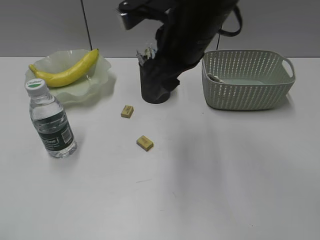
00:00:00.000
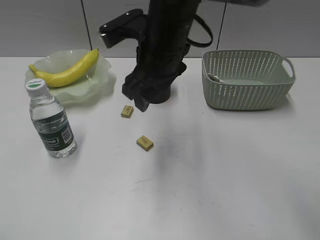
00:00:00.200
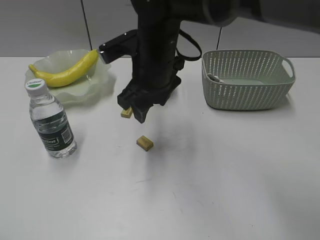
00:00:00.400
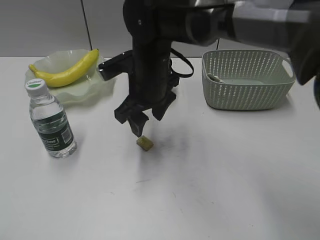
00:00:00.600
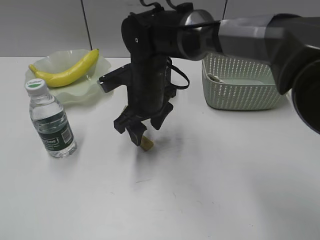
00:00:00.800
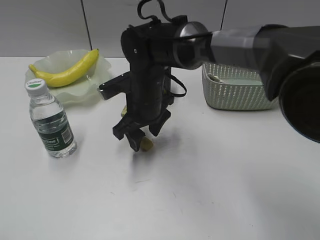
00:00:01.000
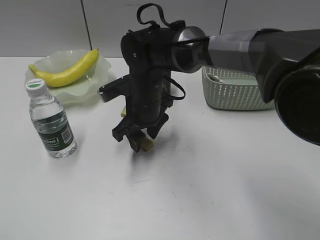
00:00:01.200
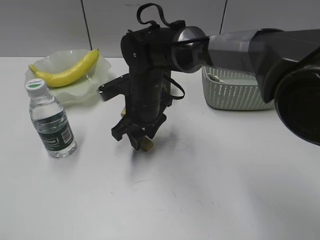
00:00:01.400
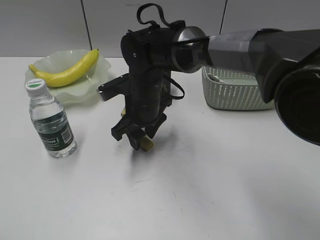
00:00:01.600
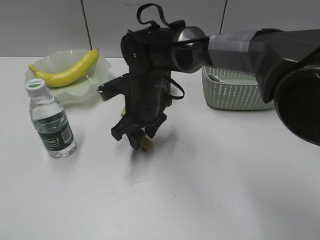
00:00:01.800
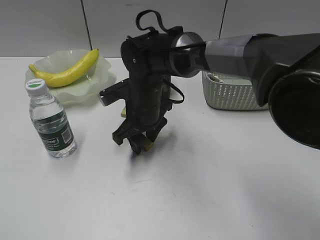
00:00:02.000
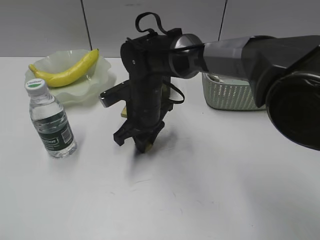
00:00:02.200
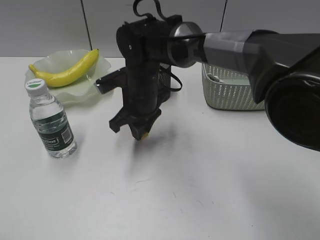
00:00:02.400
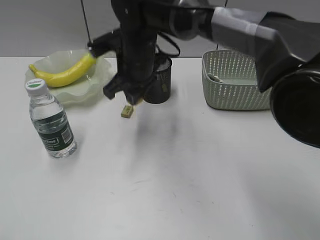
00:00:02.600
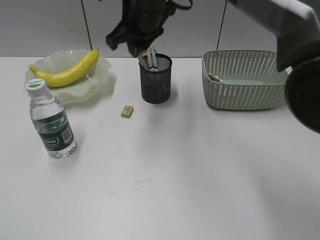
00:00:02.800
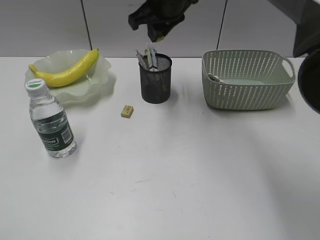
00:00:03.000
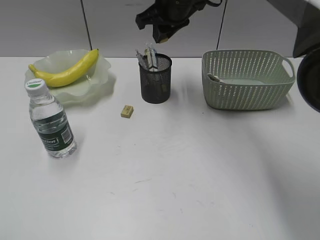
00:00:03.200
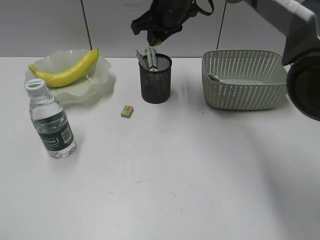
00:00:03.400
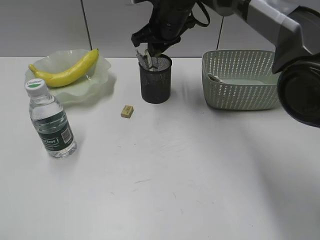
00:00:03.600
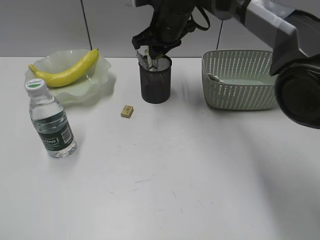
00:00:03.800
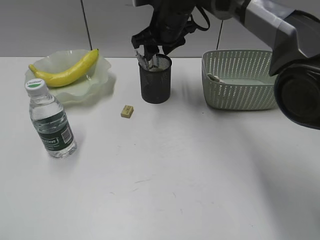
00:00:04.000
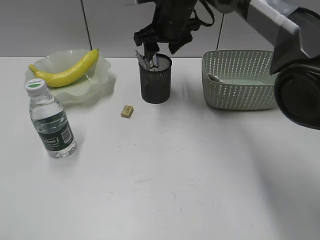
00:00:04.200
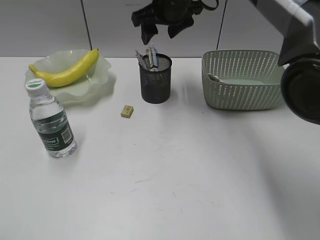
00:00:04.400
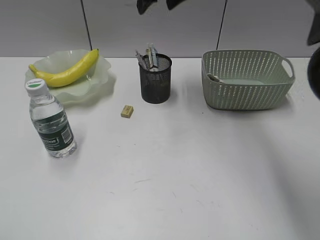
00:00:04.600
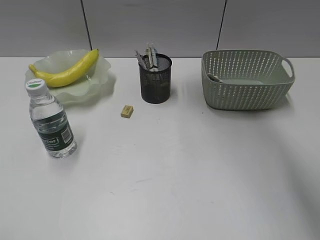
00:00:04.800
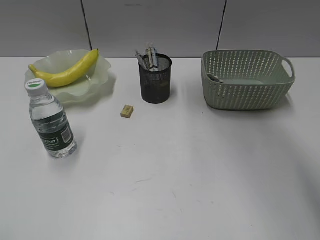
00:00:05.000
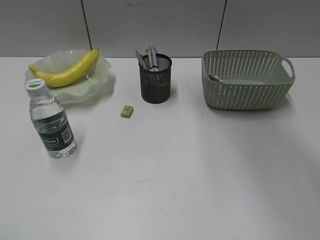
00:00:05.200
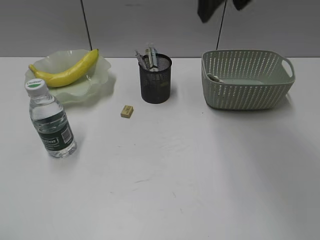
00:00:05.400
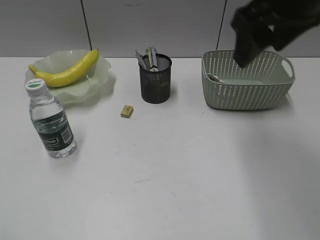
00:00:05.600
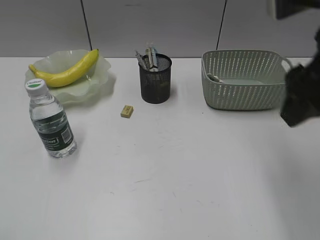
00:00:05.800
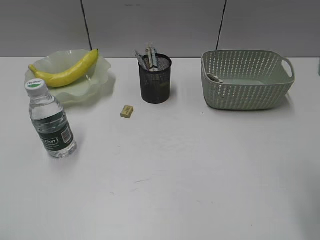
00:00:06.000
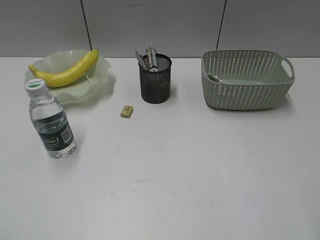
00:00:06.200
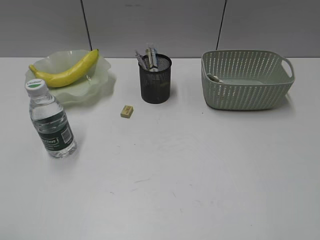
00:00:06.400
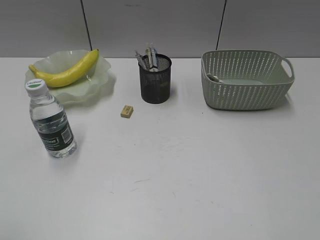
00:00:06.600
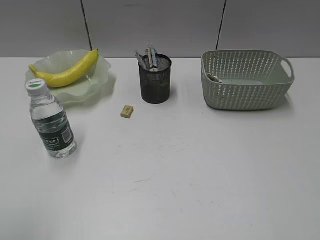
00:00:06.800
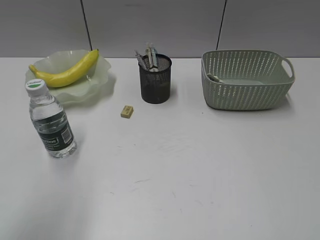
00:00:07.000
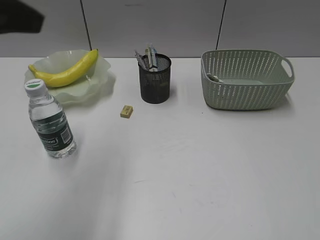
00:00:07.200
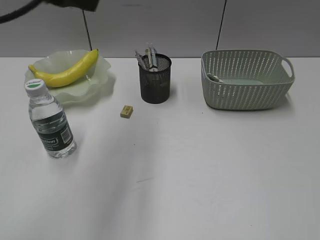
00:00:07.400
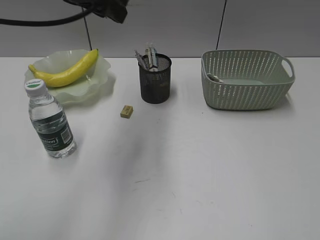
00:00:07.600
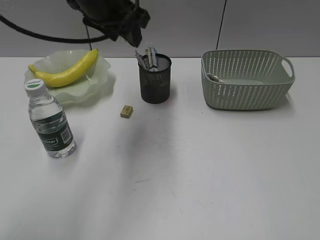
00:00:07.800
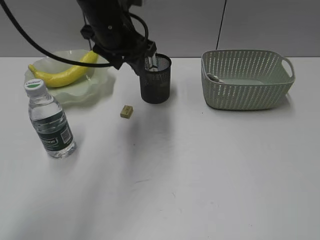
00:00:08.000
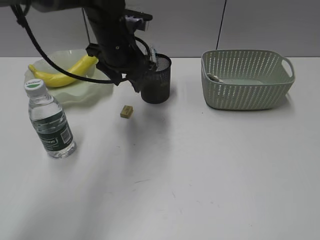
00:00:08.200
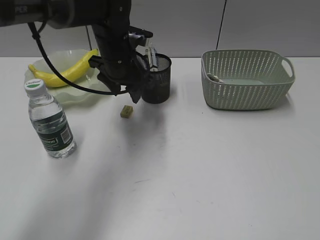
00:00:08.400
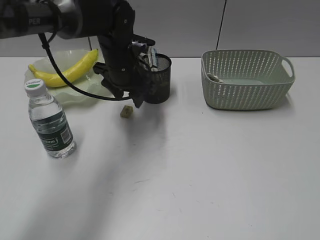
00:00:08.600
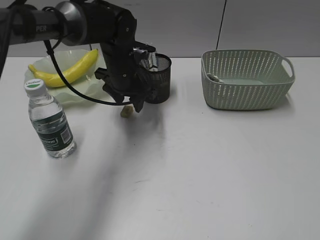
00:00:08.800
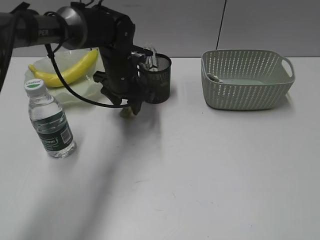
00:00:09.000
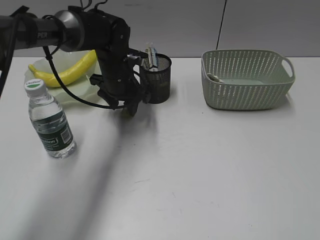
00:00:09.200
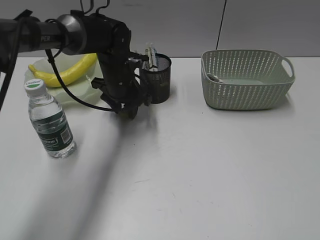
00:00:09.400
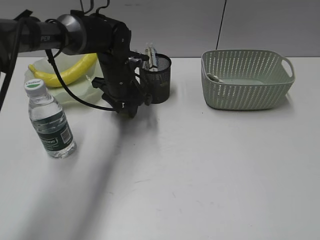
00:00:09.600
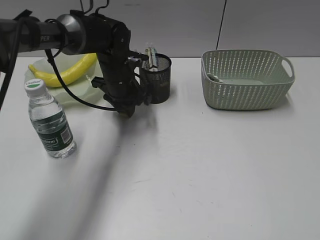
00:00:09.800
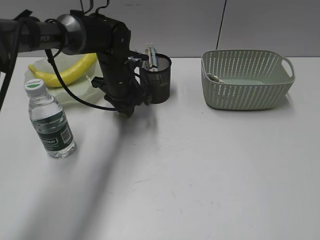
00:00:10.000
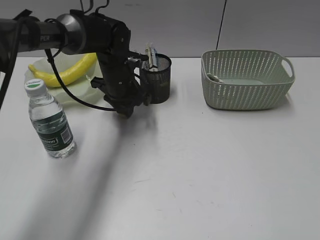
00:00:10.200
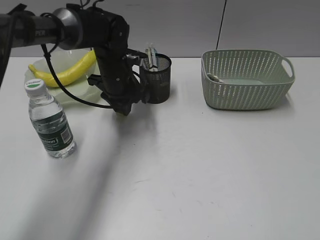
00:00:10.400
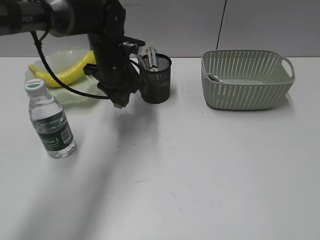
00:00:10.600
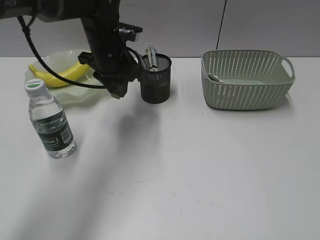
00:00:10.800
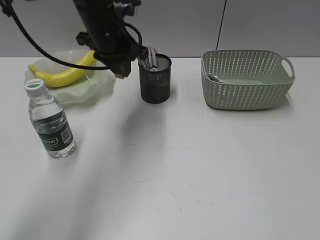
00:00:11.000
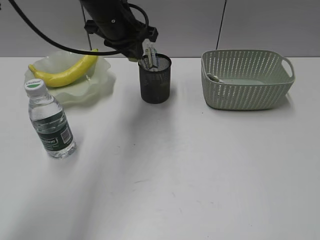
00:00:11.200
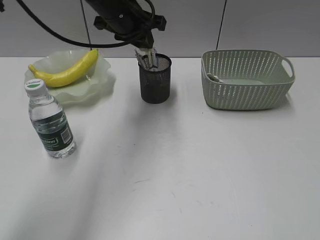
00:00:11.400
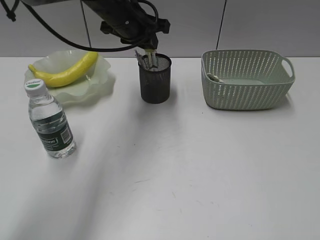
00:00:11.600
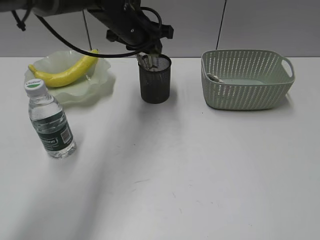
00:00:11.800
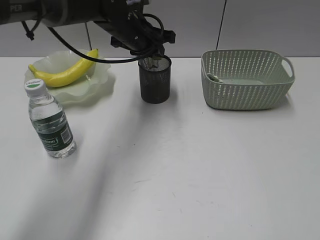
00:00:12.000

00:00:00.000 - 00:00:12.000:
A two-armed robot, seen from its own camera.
Step, 00:00:00.000 - 00:00:02.200: Grasp the eraser with right gripper.
Step, 00:00:02.400 - 00:00:04.000: Place the eraser in pen holder with right gripper.
Step, 00:00:04.200 - 00:00:09.800: Grasp the eraser with left gripper.
00:00:00.000 - 00:00:01.600: The right gripper goes about 20 cm downward and to the left.
00:00:01.600 - 00:00:03.000: The right gripper moves upward and forward, about 20 cm, and closes up.
00:00:03.000 - 00:00:04.400: The right gripper opens its fingers.
00:00:04.400 - 00:00:06.000: The right gripper moves backward and to the right, roughly 35 cm.
00:00:06.000 - 00:00:07.600: The left gripper is displaced forward and to the right by some 40 cm. The right gripper goes about 20 cm backward and to the right.
00:00:07.600 - 00:00:09.000: The left gripper is displaced downward and forward by approximately 25 cm.
00:00:09.000 - 00:00:10.400: The left gripper closes its fingers.
00:00:10.400 - 00:00:12.000: The left gripper goes some 10 cm upward.

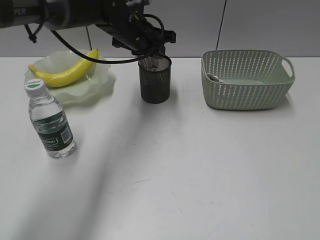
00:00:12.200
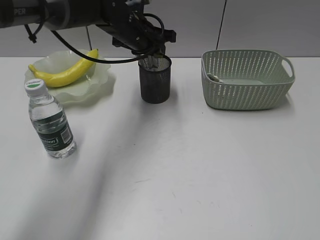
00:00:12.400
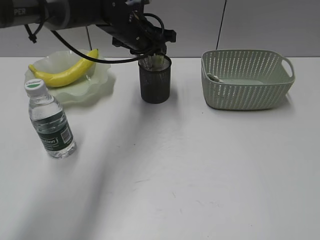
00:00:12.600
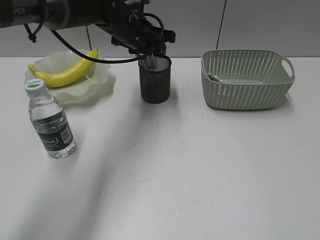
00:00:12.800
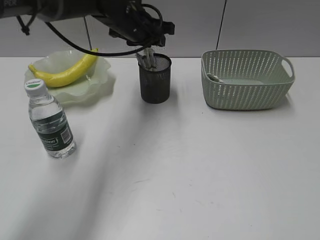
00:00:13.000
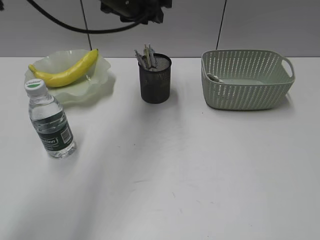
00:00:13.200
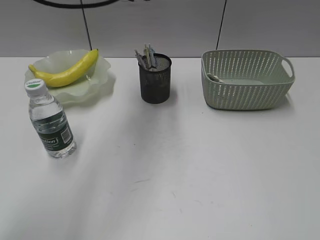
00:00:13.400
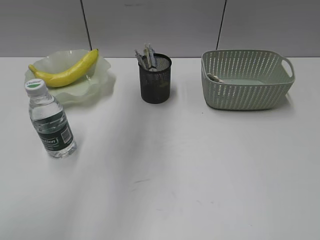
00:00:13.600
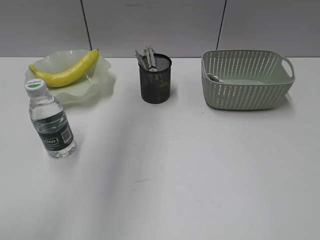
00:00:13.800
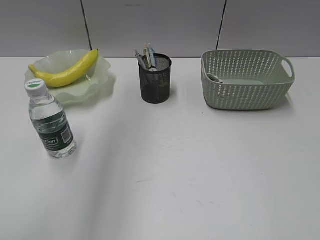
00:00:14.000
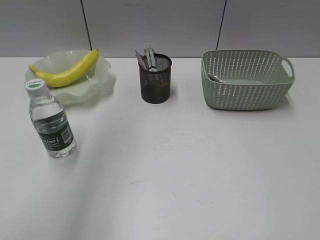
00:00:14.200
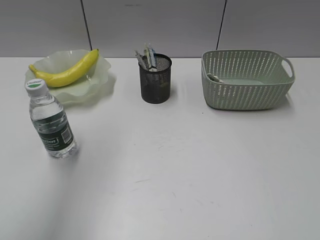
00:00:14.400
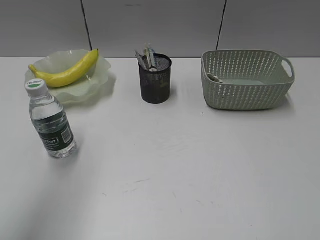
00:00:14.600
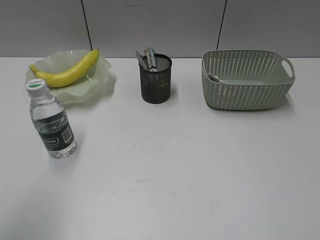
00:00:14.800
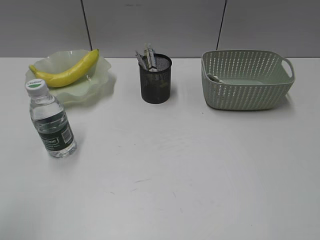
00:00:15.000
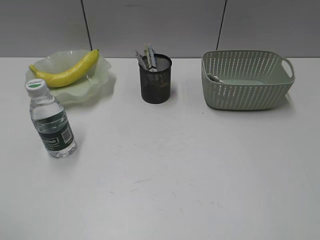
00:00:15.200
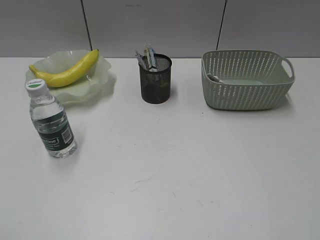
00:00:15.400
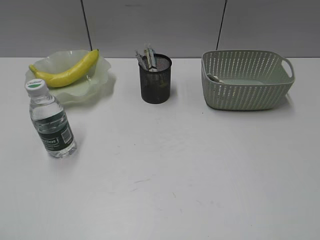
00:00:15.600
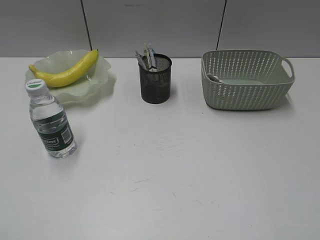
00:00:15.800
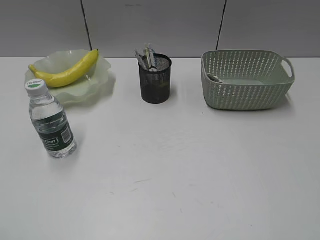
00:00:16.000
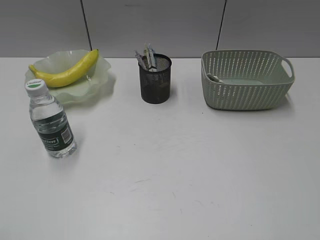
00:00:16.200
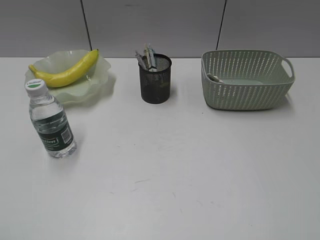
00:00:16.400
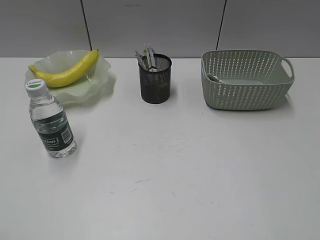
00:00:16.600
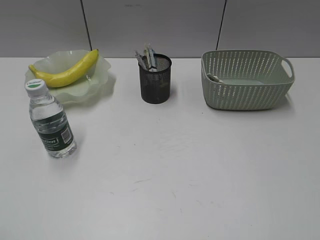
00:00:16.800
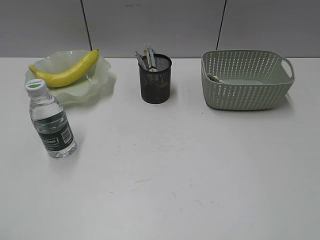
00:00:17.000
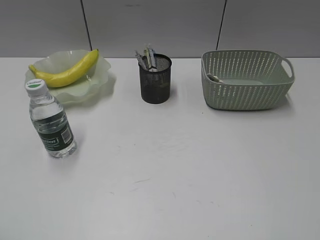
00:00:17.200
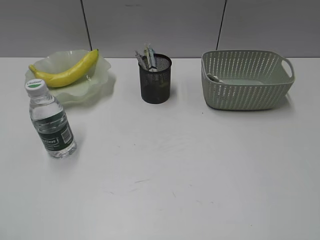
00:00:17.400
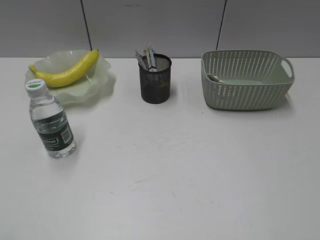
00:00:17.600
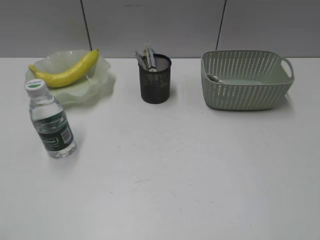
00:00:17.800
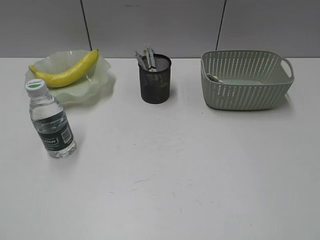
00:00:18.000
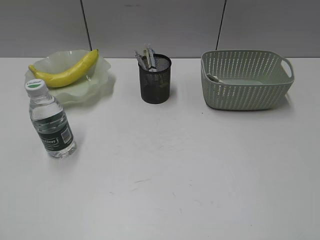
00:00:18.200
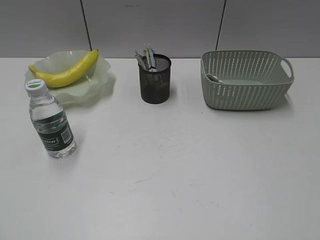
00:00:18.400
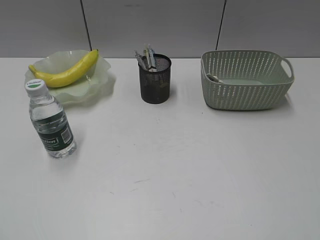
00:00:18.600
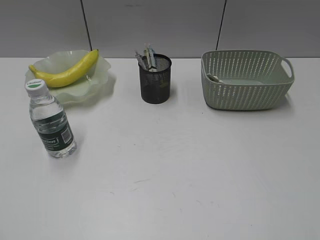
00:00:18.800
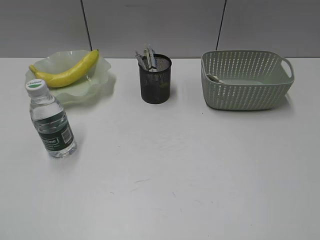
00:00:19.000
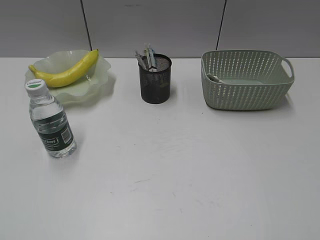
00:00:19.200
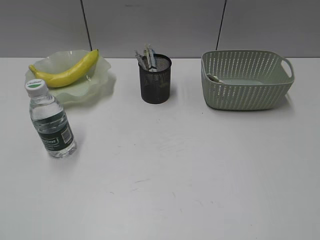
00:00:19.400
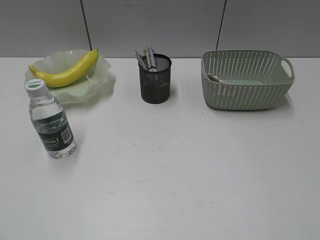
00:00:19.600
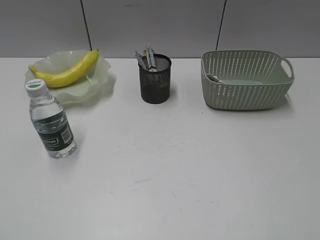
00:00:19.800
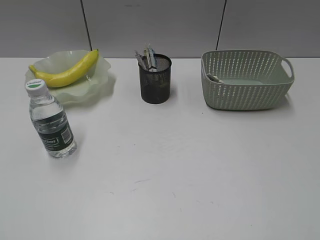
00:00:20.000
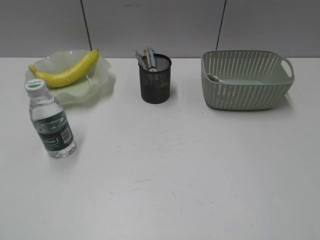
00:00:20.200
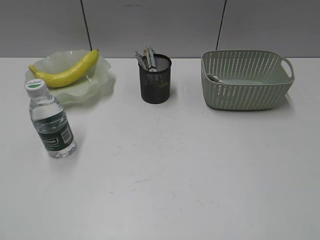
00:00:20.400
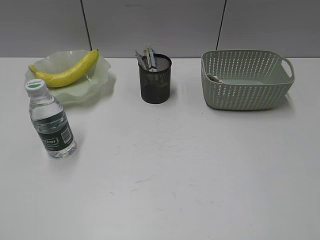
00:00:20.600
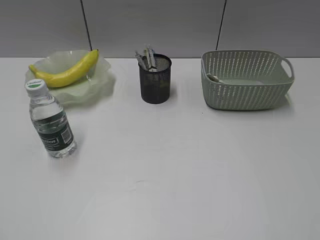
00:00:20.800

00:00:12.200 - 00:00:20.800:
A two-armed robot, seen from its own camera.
00:00:12.200 - 00:00:13.600: The left gripper moves upward and backward, approximately 20 cm.
00:00:13.600 - 00:00:15.000: The left gripper travels backward and to the left by roughly 35 cm.
00:00:19.400 - 00:00:20.800: Both grippers stay put.

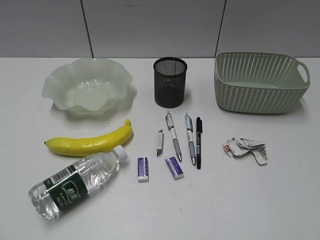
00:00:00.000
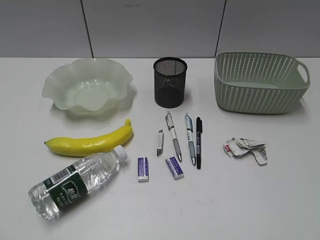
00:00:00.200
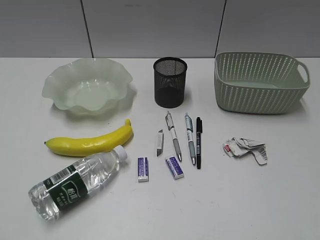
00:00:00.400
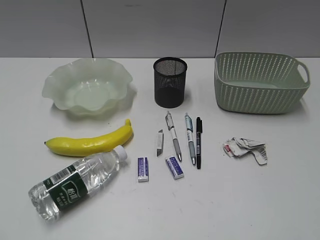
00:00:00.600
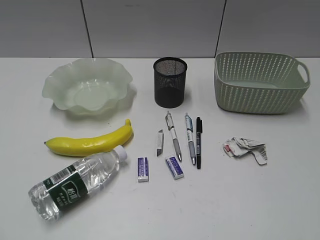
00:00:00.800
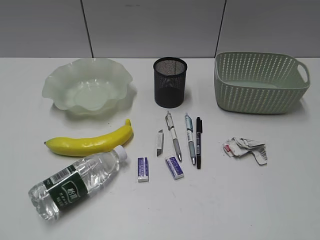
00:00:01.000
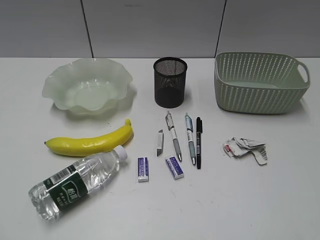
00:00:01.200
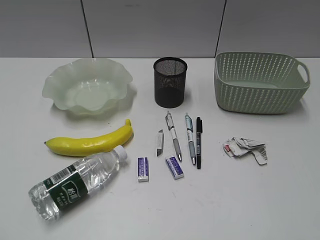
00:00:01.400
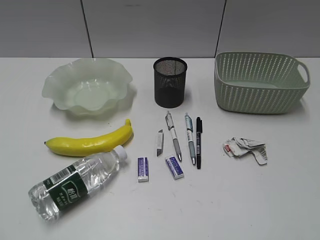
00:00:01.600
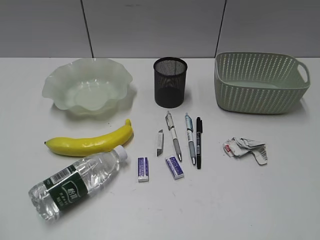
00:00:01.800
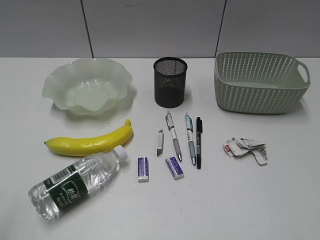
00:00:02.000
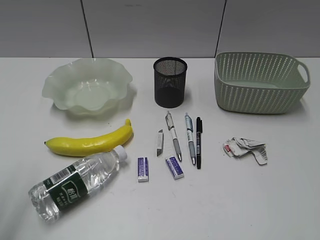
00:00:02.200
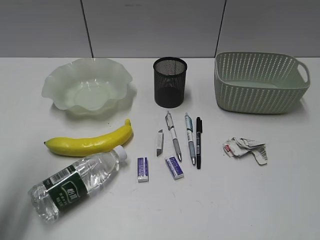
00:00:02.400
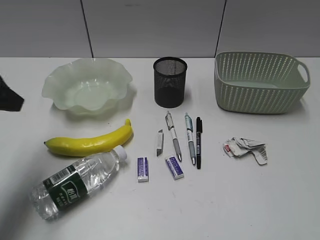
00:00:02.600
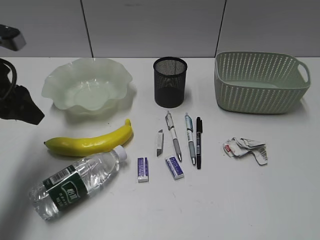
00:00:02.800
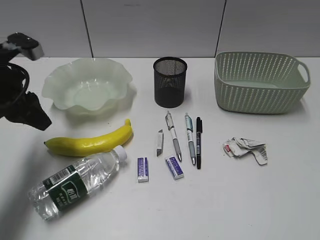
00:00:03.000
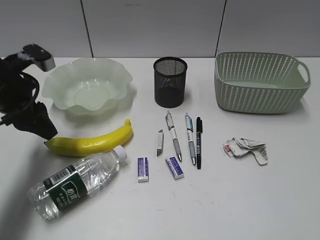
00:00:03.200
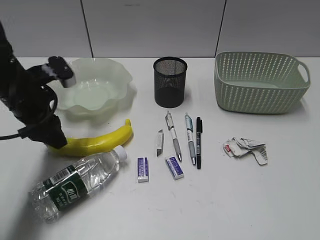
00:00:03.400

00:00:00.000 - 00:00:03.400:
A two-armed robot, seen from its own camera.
00:00:01.600 - 00:00:03.400: The left gripper goes approximately 35 cm forward, and opens its fingers.
